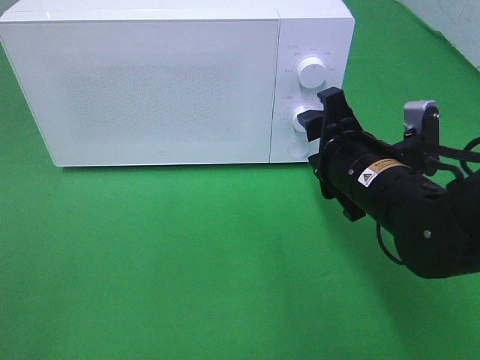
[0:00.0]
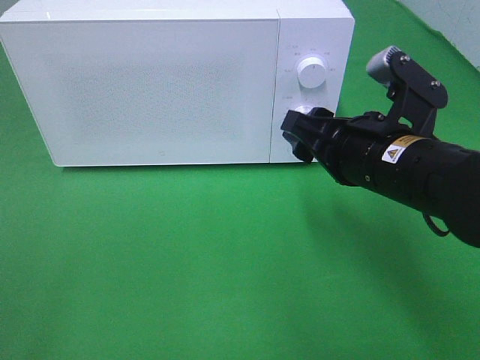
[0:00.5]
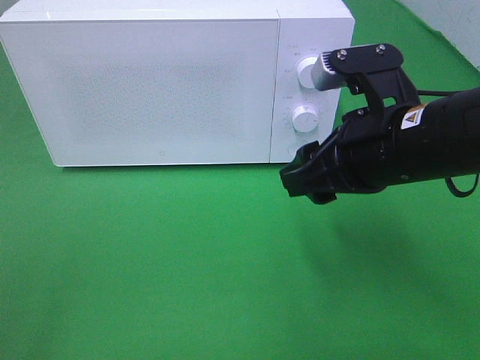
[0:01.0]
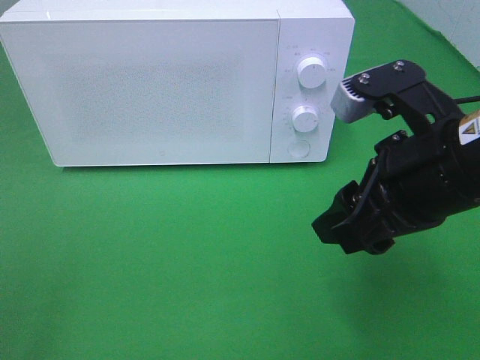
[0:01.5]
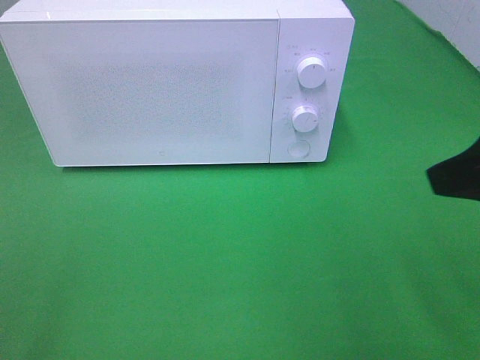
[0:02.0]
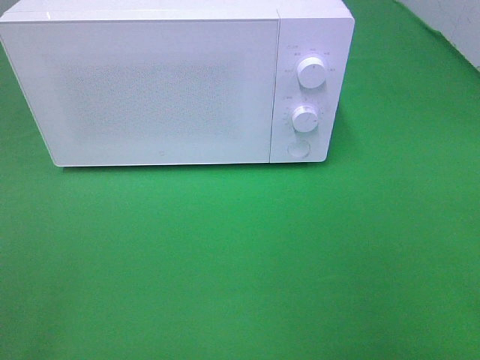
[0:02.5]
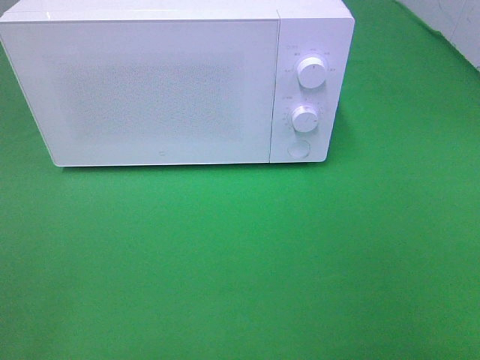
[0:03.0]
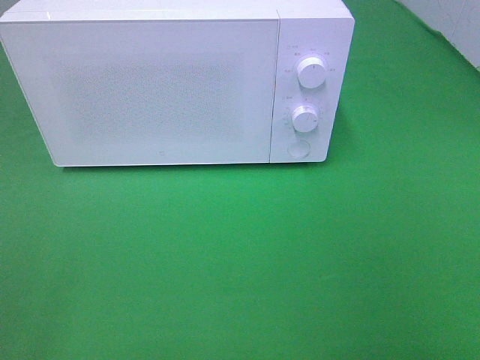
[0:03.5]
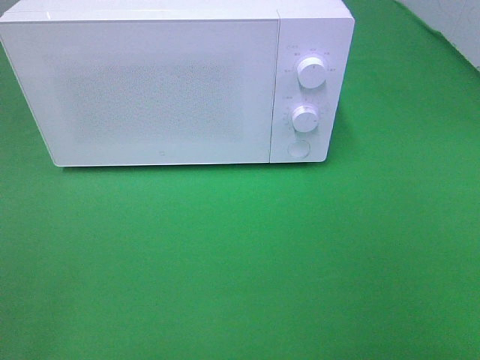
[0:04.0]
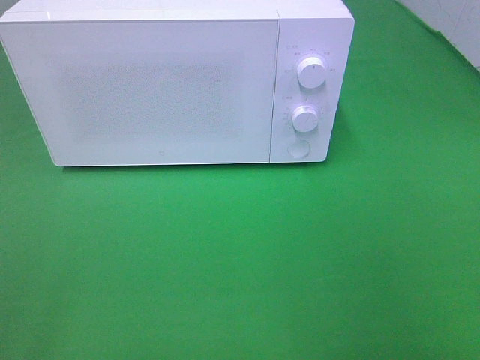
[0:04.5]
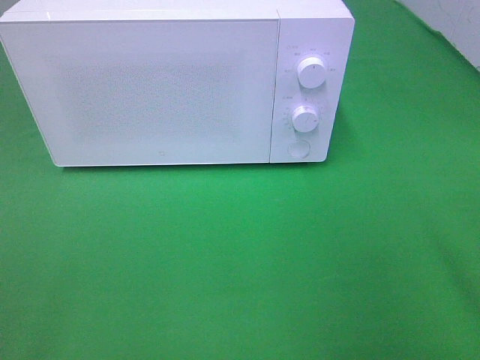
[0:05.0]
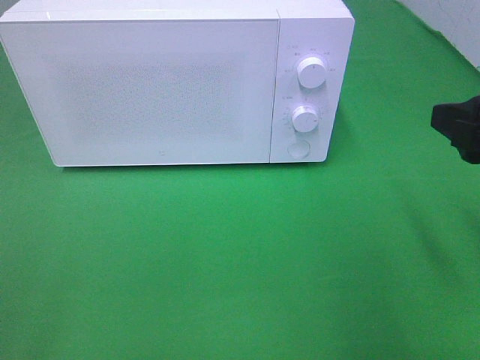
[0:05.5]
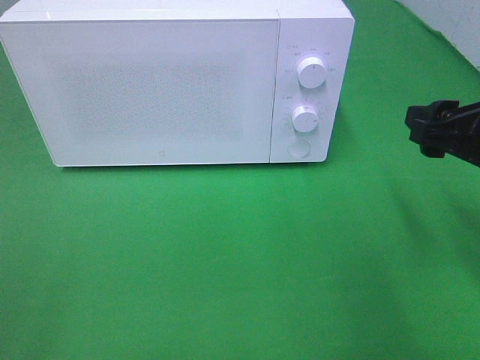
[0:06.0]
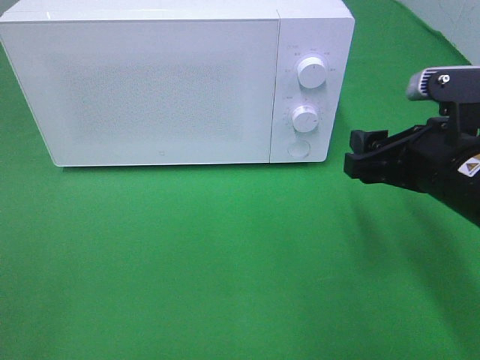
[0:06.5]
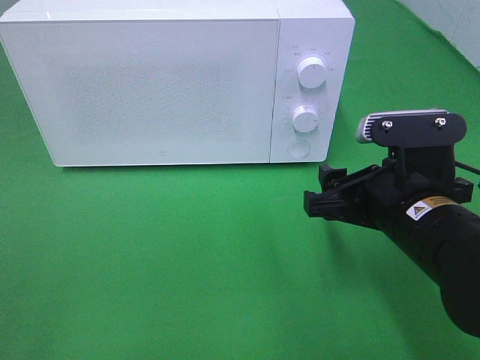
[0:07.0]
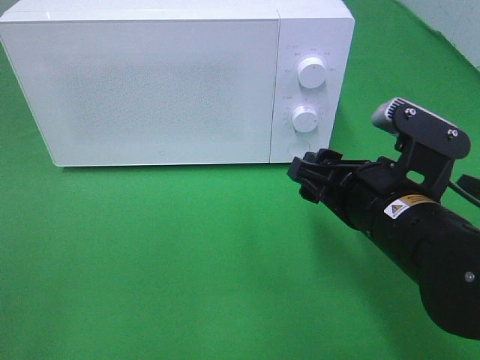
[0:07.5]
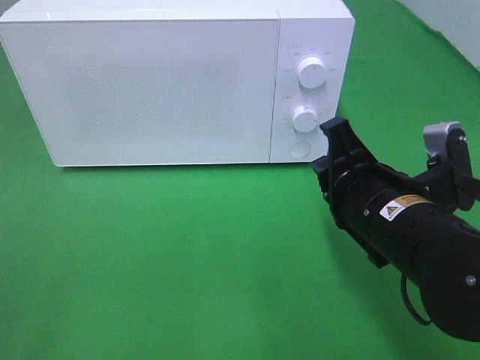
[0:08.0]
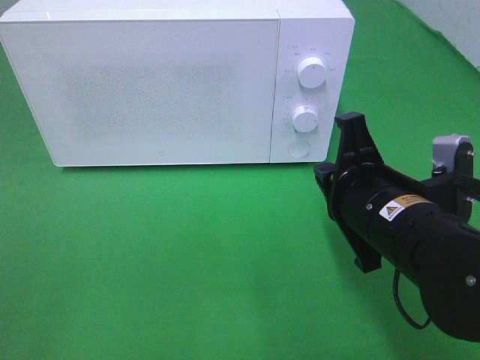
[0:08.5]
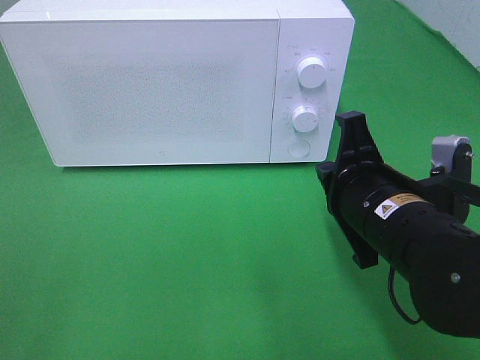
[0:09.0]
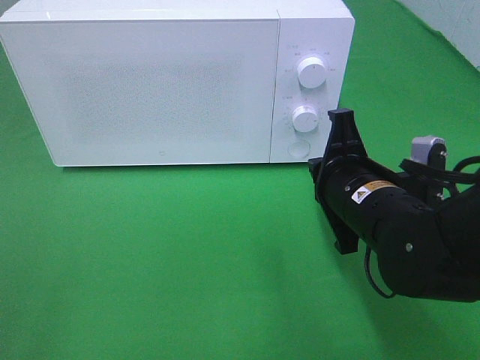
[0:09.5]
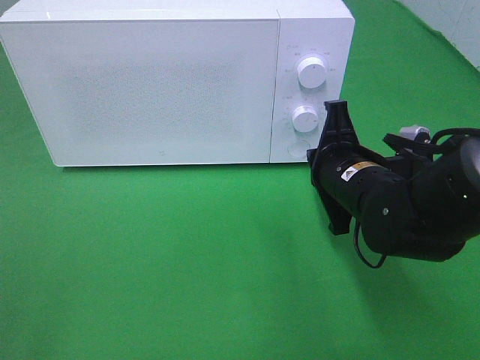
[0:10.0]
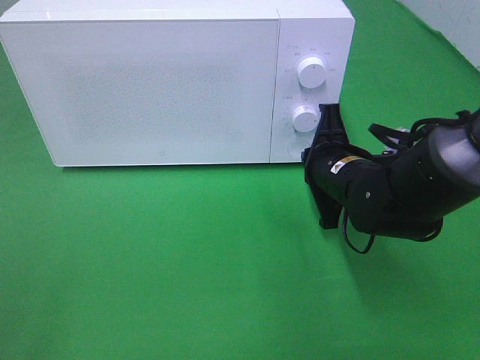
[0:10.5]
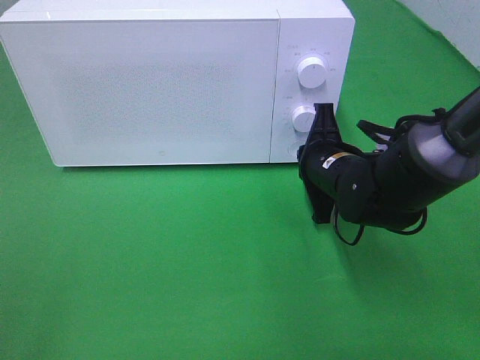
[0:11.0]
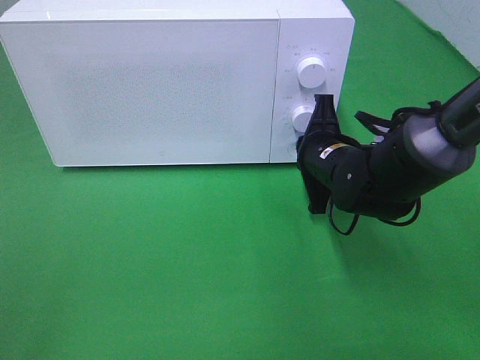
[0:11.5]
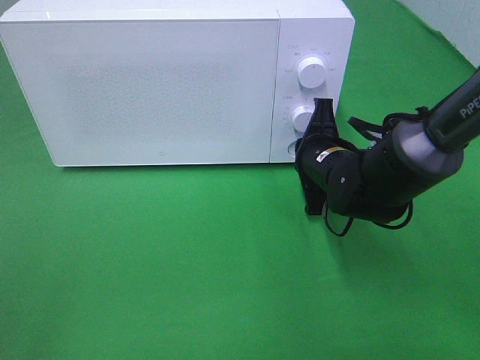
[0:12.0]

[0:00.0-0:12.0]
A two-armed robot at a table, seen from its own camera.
Task of the whole recording: Heat the burger.
0.0 to 2.0 s: The right gripper is displaced upward, backward and to the right by approximately 20 cm.
2.0 to 4.0 s: The right gripper travels backward by about 15 cm.
4.0 to 6.0 s: The right gripper travels forward by roughly 20 cm.
6.0 to 8.0 s: The right gripper shifts approximately 15 cm to the left and downward, and closes up.
8.0 to 10.0 s: The right gripper is displaced forward by roughly 10 cm.
10.0 to 12.0 s: The right gripper is displaced forward by about 5 cm.

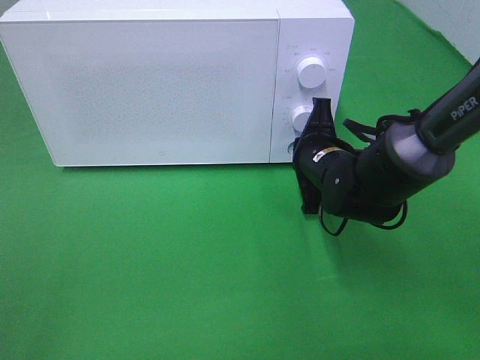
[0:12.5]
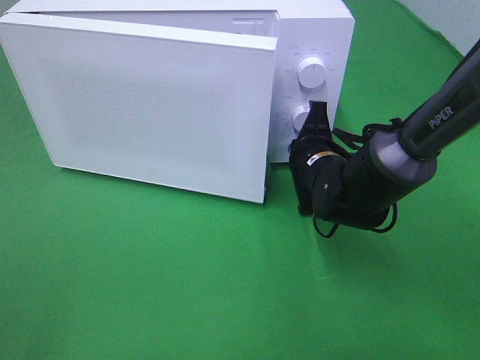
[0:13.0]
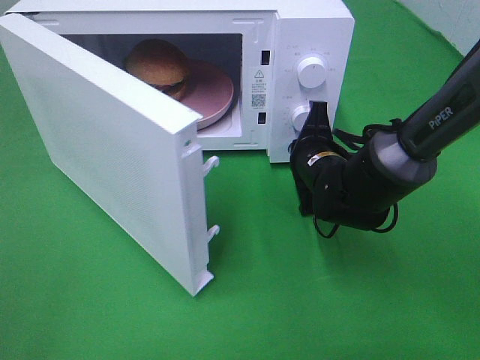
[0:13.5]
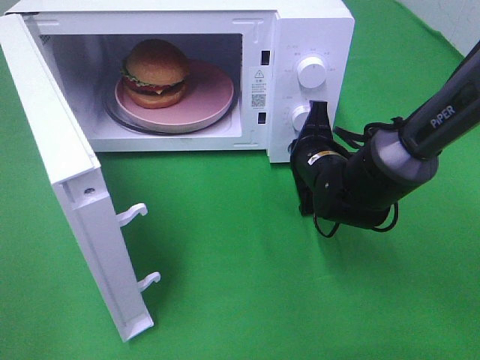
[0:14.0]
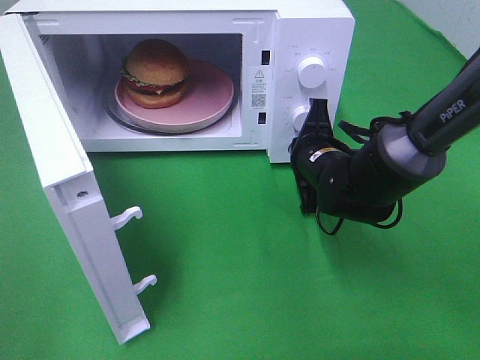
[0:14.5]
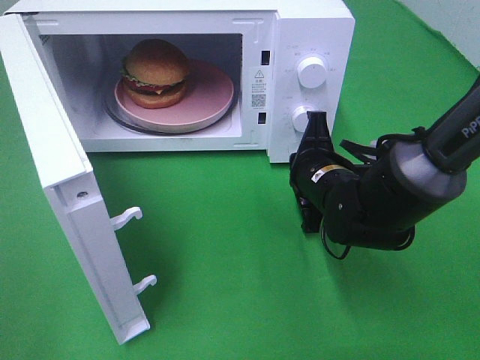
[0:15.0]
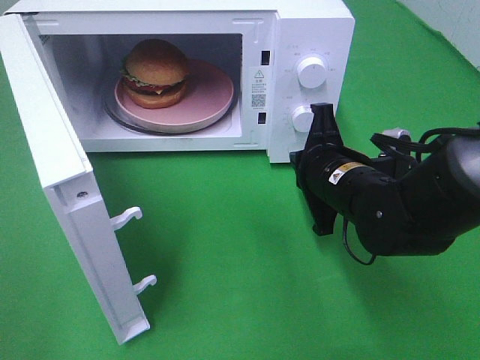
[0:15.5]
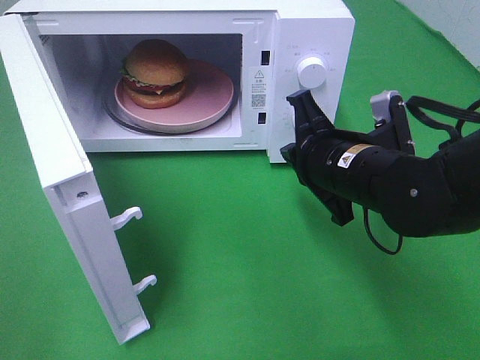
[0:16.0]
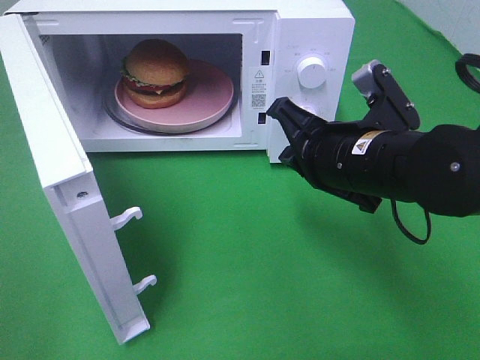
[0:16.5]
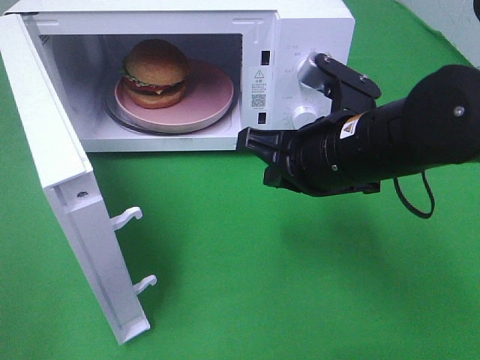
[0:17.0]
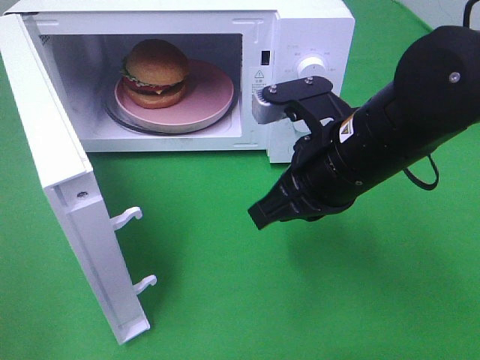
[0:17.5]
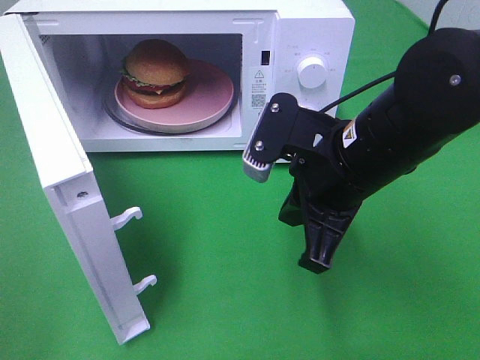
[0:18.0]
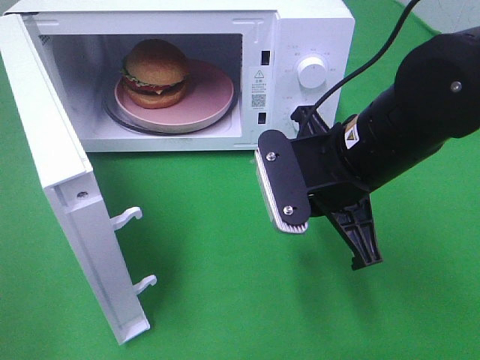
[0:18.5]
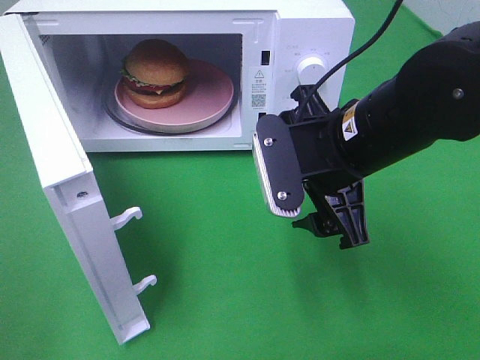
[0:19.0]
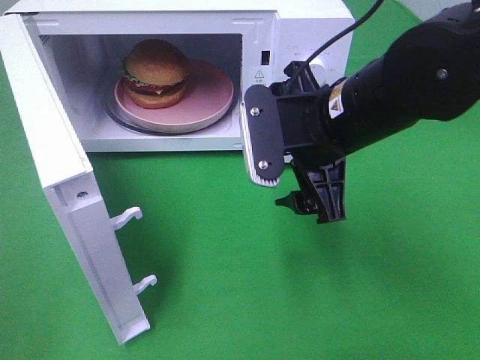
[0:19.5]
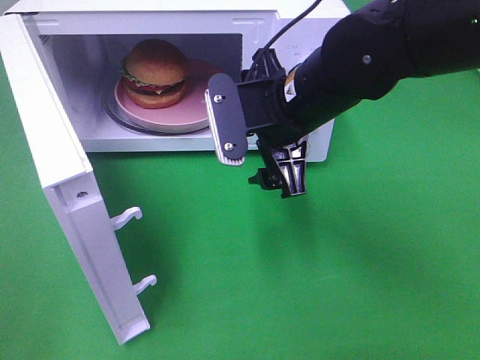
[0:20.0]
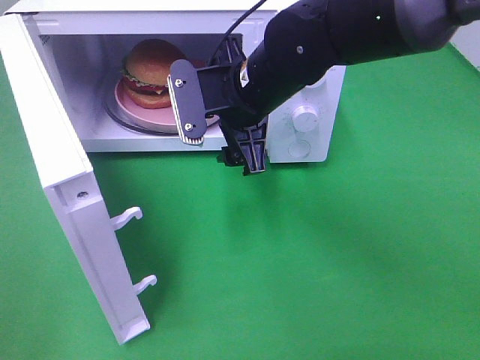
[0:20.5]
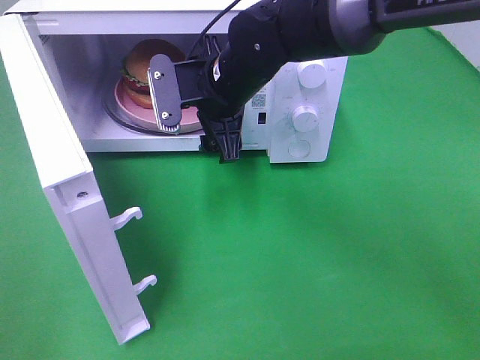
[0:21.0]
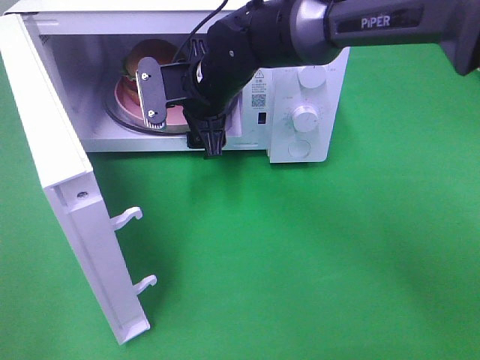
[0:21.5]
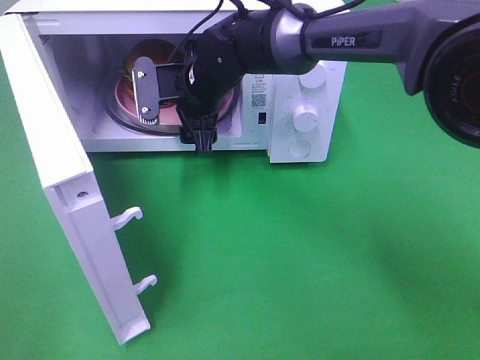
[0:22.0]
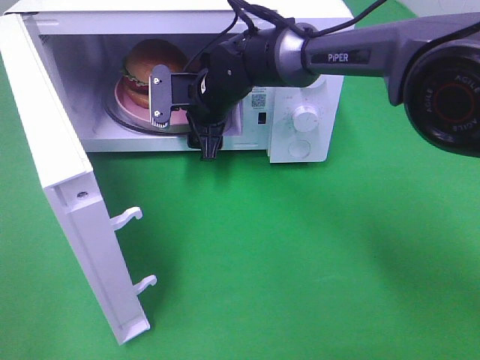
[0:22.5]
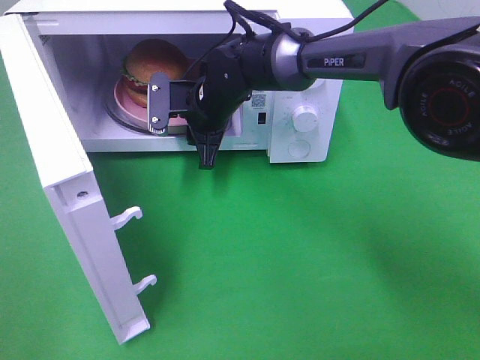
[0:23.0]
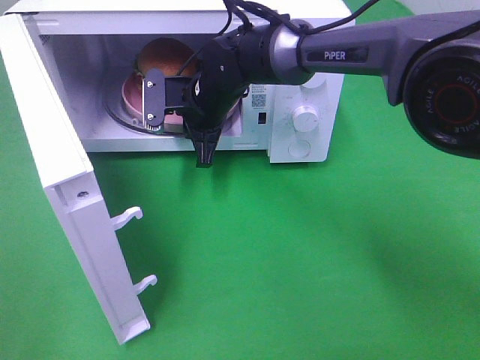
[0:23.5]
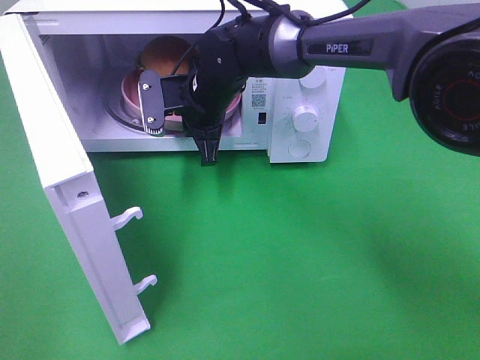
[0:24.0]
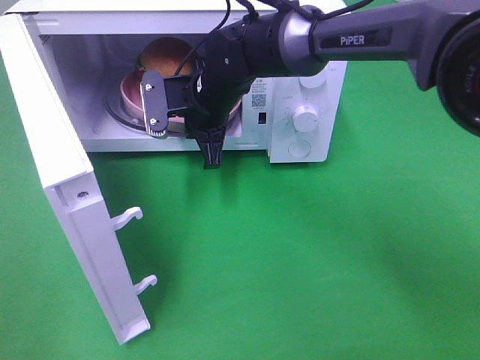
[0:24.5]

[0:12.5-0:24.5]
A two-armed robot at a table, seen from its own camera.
Task of the whole recording: Heat the burger.
Step, 12.5 to 16.0 s: Right hand: press the switch.
Step, 16.5 to 23.5 s: Right hand: grab the plate with the hamburger.
14.5 to 16.5 s: The right gripper moves backward and upward, approximately 15 cm.
18.5 to 20.5 s: The right gripper shifts roughly 15 cm forward and to the left, and opens up.
20.5 to 22.5 s: The right gripper shifts approximately 15 cm forward and downward.
22.5 to 24.5 s: The right gripper closes its fingers.

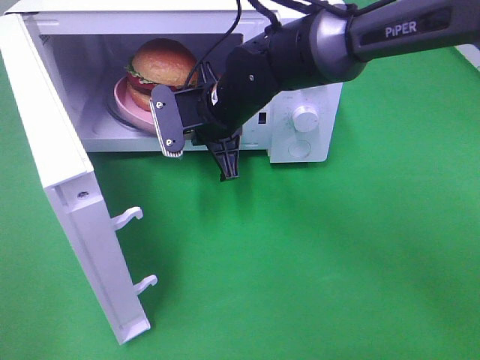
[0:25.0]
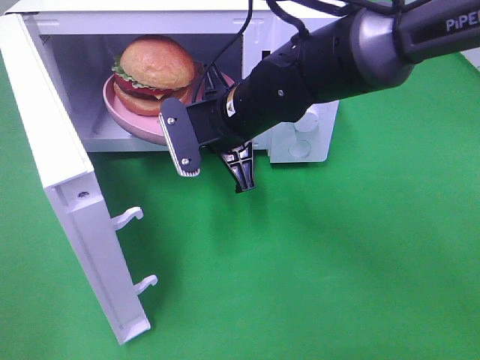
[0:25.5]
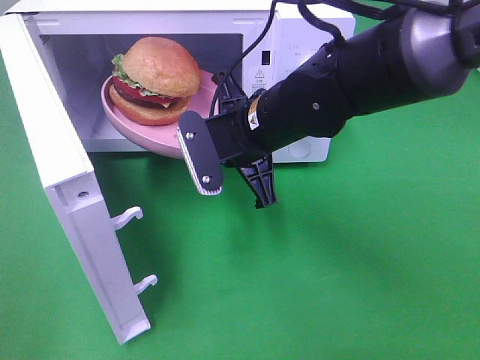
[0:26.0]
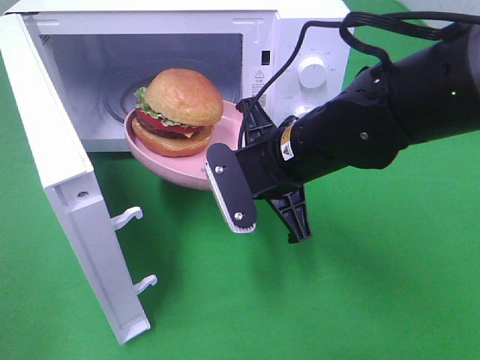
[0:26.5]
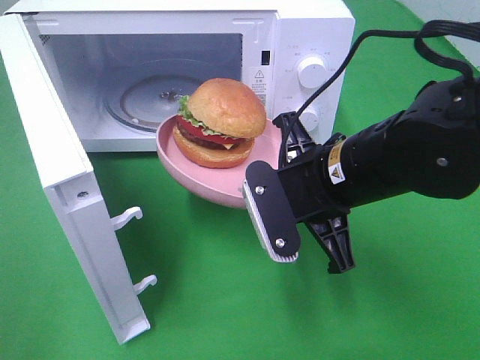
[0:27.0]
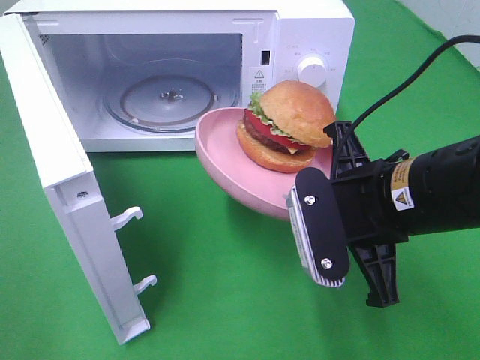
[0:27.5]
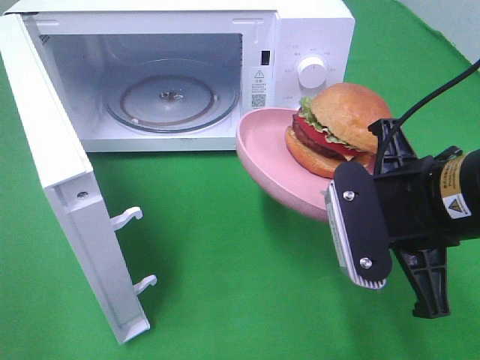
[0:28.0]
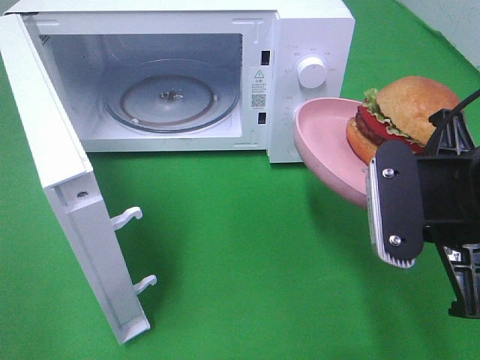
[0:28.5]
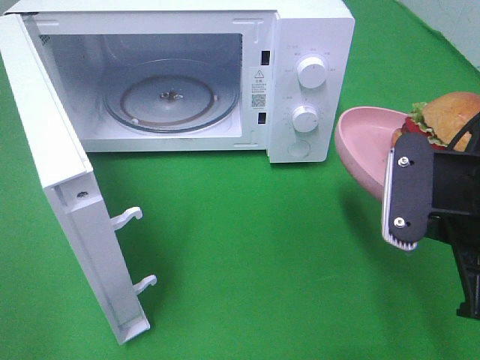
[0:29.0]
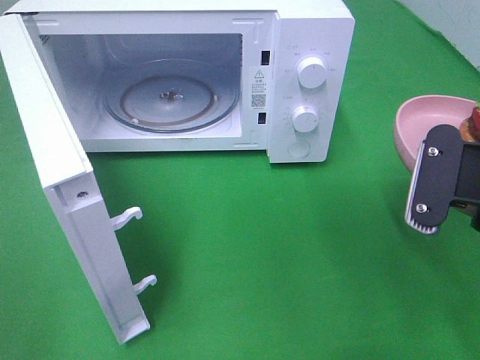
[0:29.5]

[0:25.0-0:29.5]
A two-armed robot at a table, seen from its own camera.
Task of the whole recording: Heat the burger.
25.0 to 27.0 s: The right gripper moves backward and to the right, roughly 15 cm.
27.0 to 29.5 s: The right gripper heads to the right and backward, covering some 15 cm.
